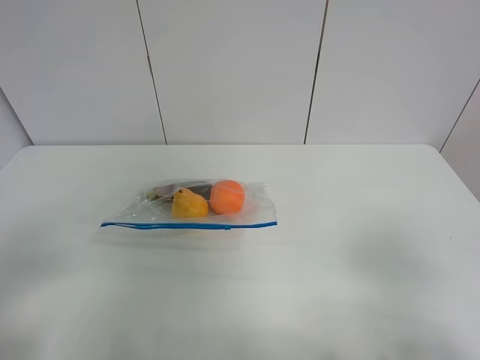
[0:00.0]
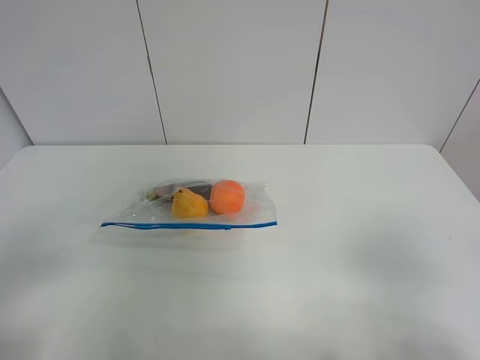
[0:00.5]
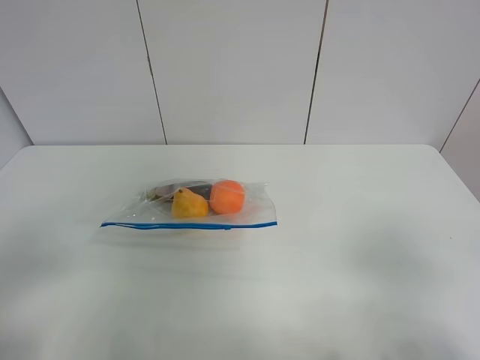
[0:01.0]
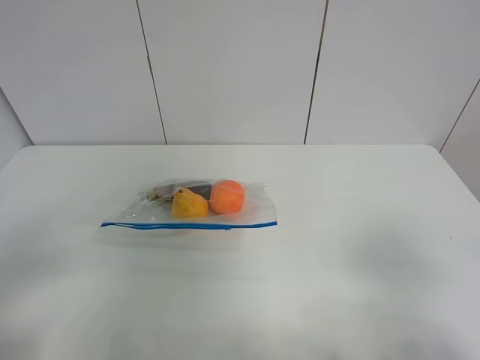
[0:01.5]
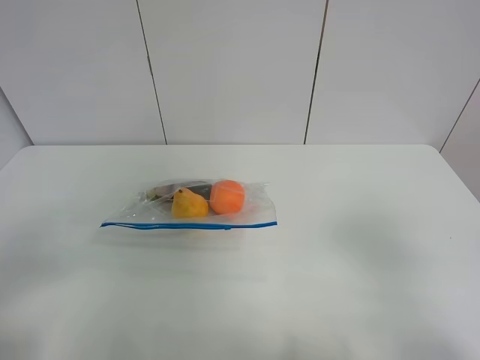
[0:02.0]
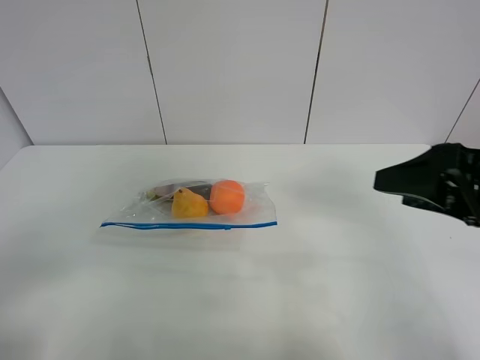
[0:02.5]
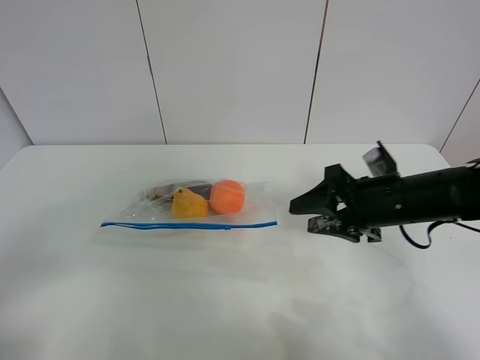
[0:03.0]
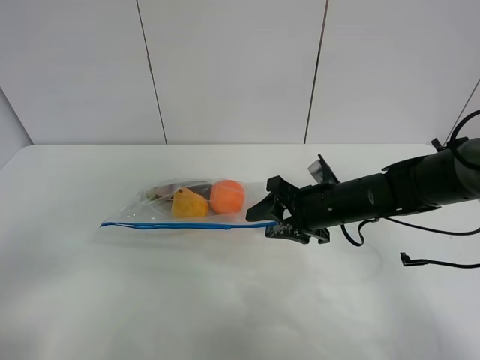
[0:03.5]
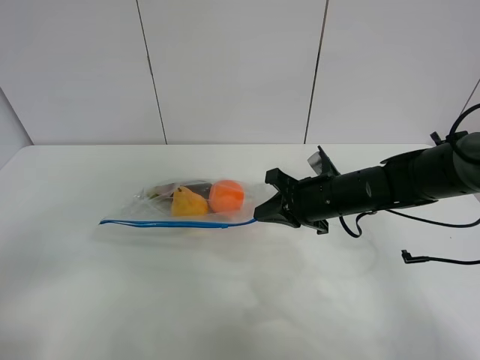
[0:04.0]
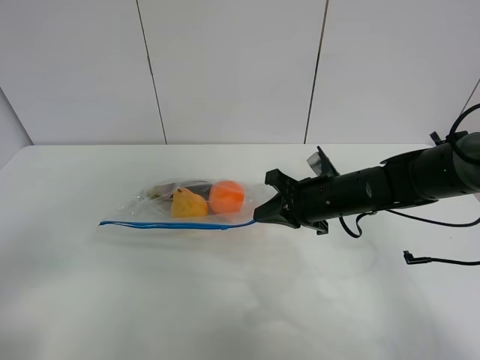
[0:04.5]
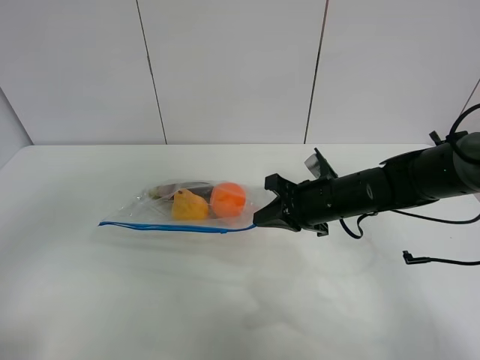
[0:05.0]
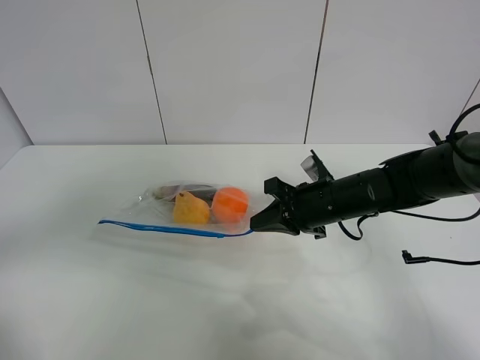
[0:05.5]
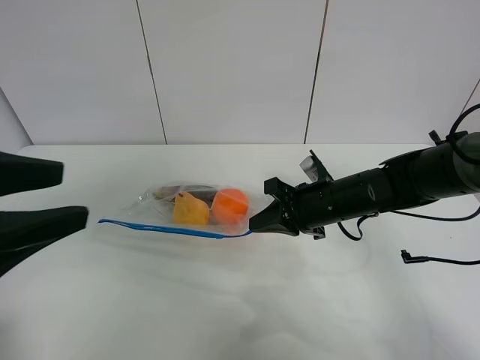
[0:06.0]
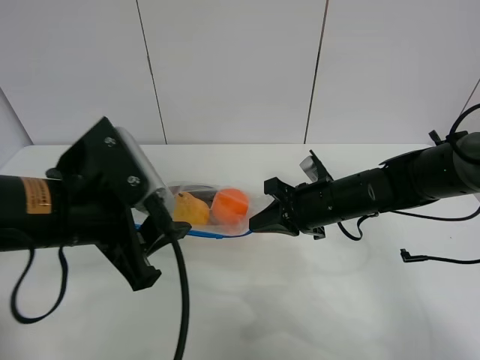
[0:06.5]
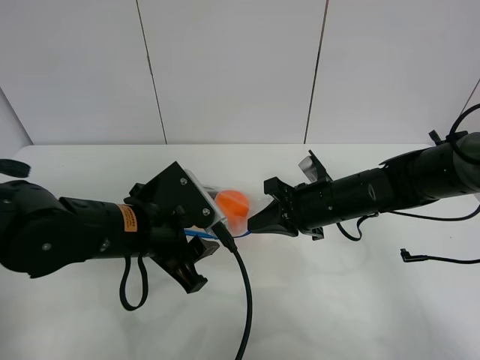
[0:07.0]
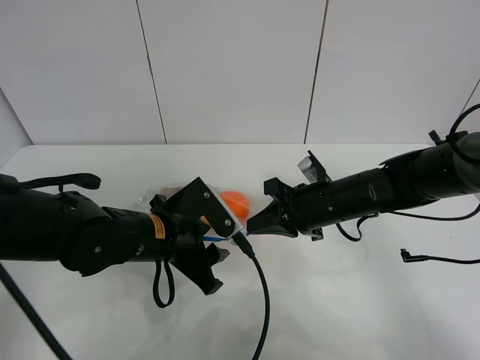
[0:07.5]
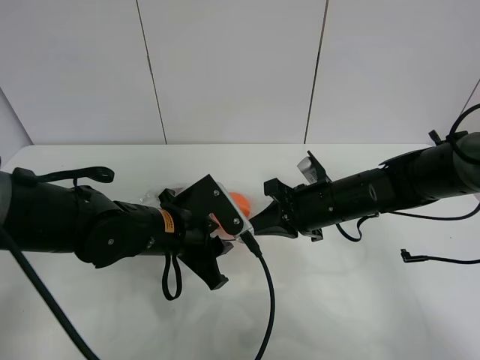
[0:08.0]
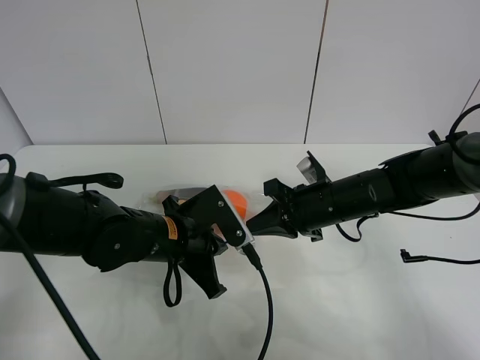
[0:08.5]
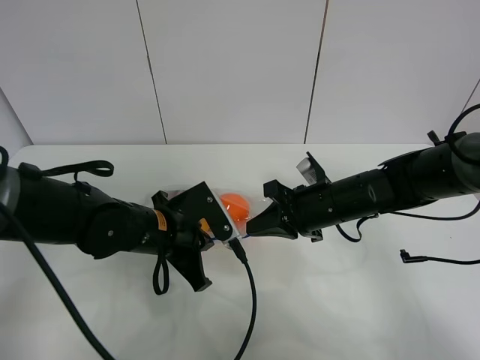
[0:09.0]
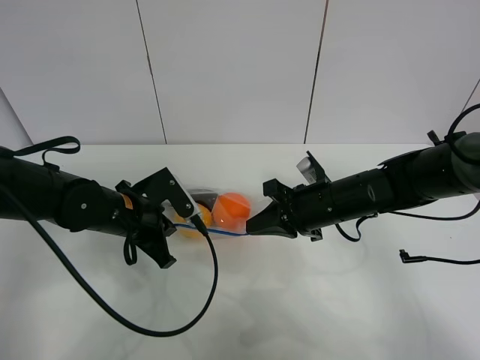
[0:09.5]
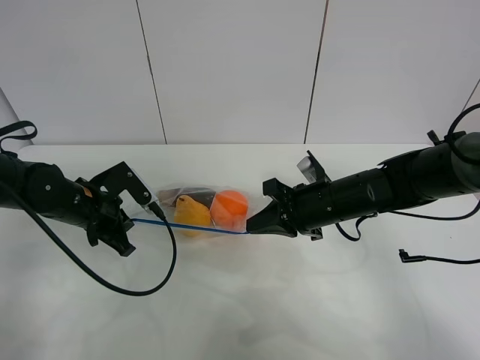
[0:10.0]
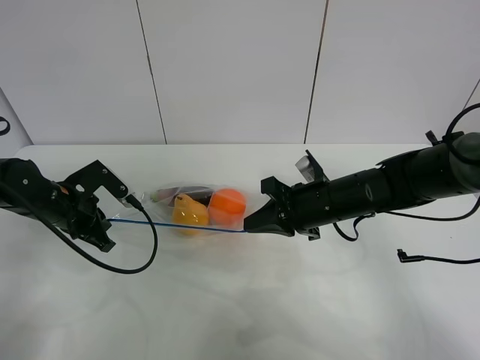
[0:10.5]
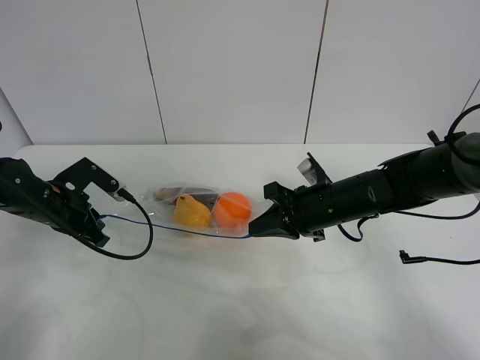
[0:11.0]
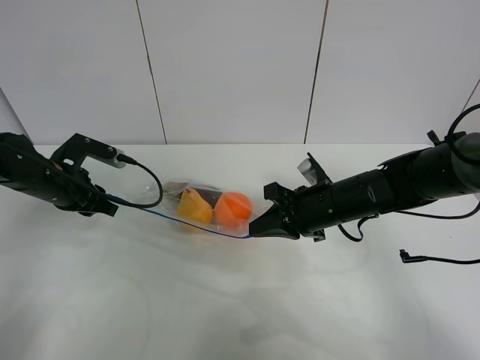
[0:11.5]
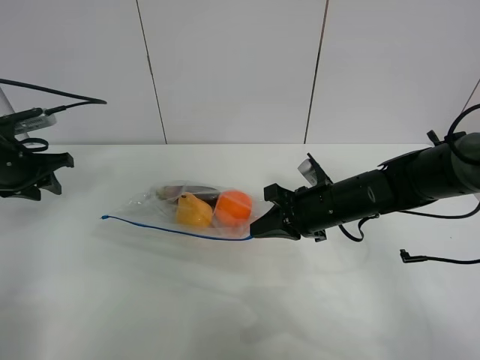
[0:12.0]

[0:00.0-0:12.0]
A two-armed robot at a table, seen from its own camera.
Step, 0.0 to 4.0 s: Grasp the fruit bag with right gripper.
Step, 4.5 to 11.0 s: Pull the fruit bag with left gripper.
2.0 to 4.0 s: The right gripper goes roughly 35 cm forward, downward and to the left, and closes.
4.0 to 6.0 s: The left gripper goes about 15 cm forward, to the right and upward.
6.0 to 8.0 s: The left gripper shifts roughly 25 cm downward, forward and to the right.
8.0 to 10.0 s: The left gripper travels to the left and forward by about 15 cm, and closes up.
10.0 to 12.0 s: The left gripper shifts roughly 15 cm to the left and upward, and opens up.

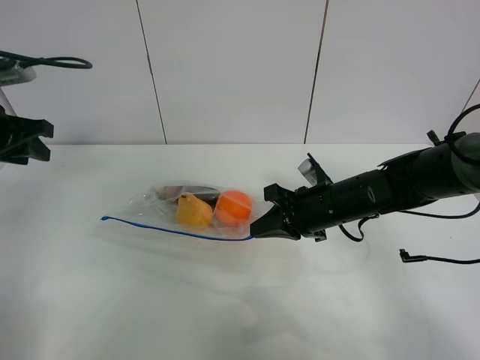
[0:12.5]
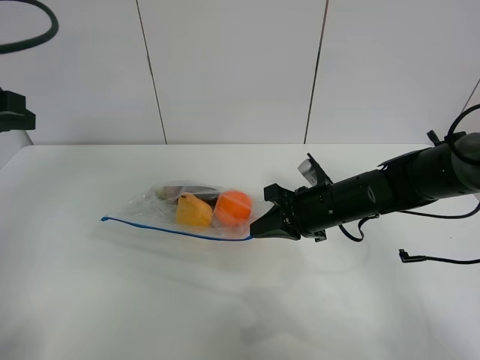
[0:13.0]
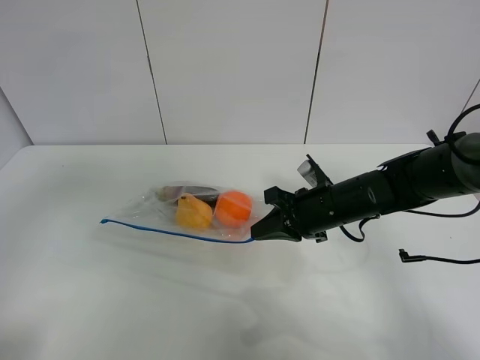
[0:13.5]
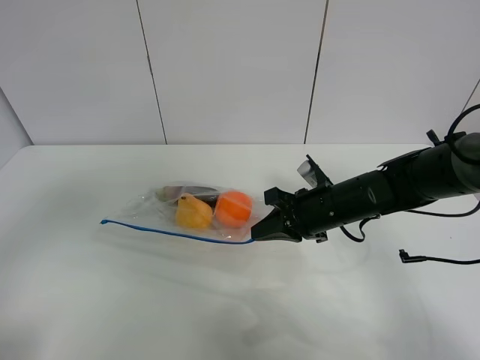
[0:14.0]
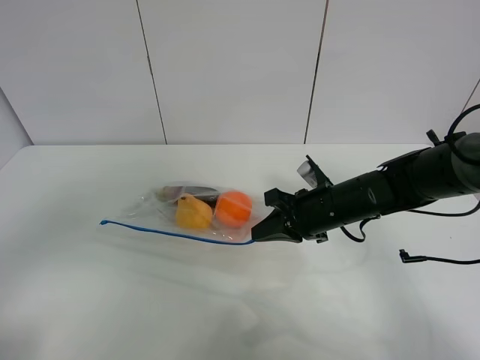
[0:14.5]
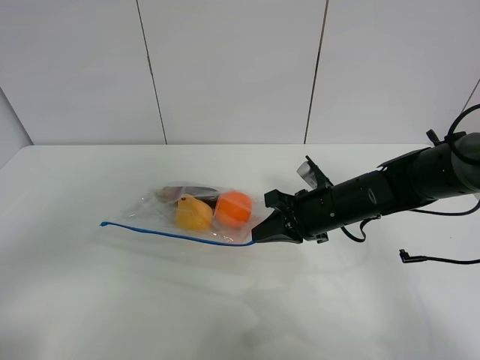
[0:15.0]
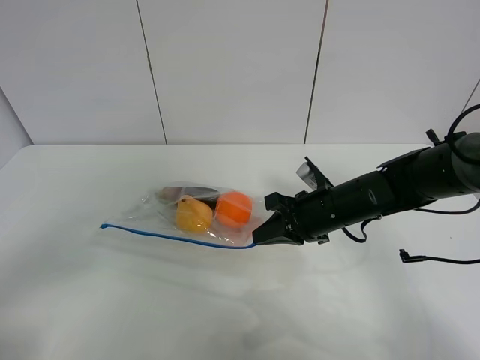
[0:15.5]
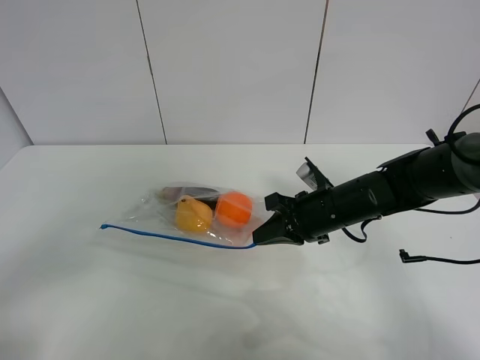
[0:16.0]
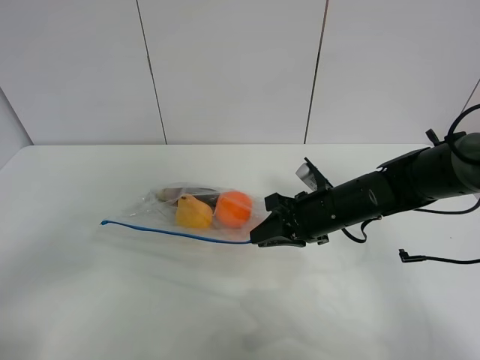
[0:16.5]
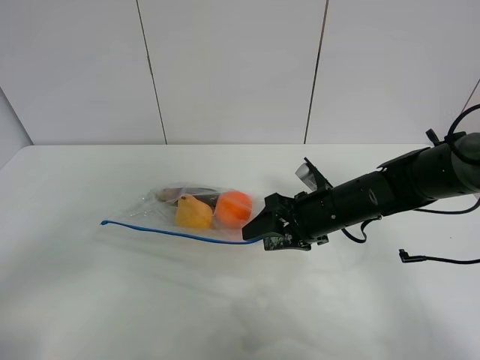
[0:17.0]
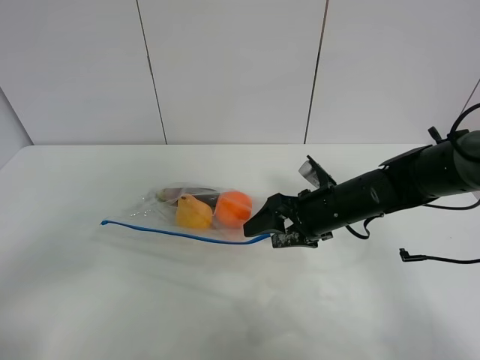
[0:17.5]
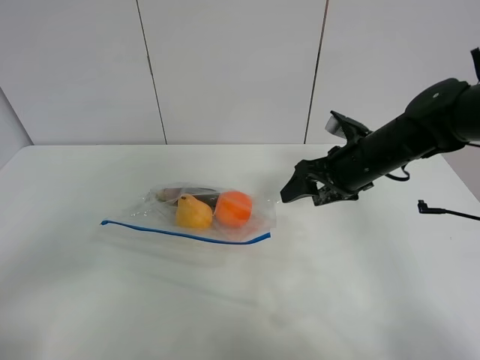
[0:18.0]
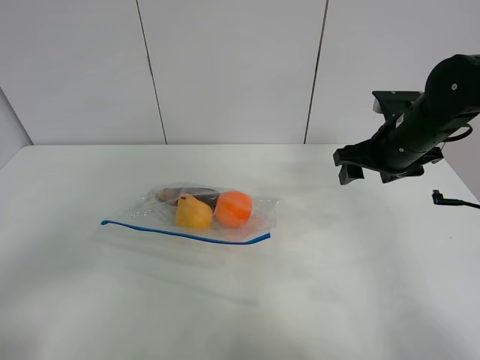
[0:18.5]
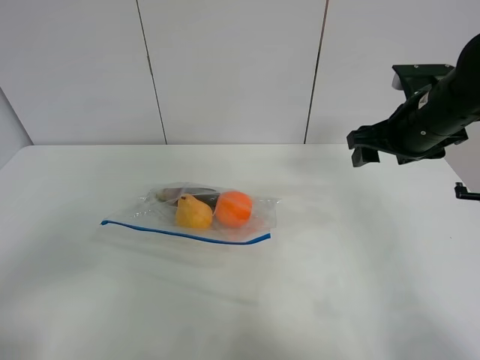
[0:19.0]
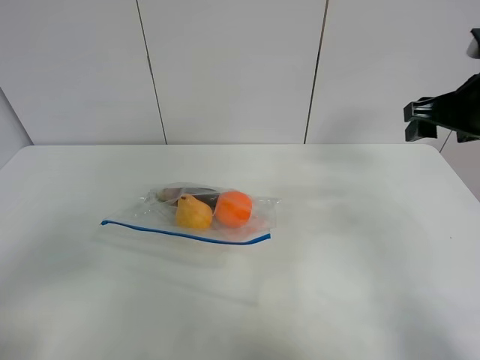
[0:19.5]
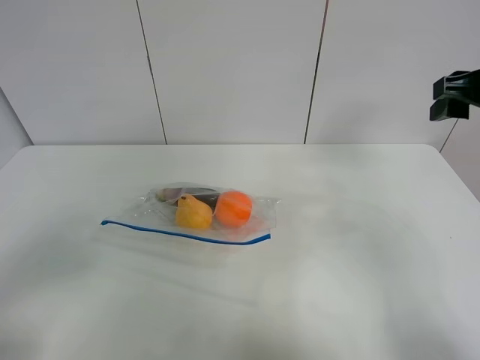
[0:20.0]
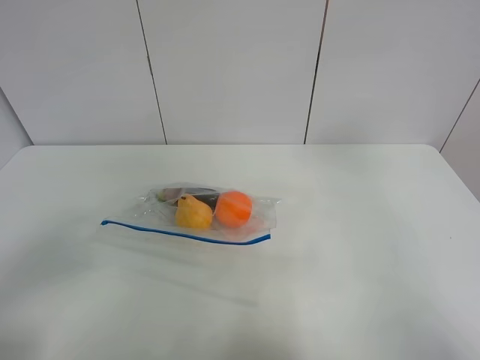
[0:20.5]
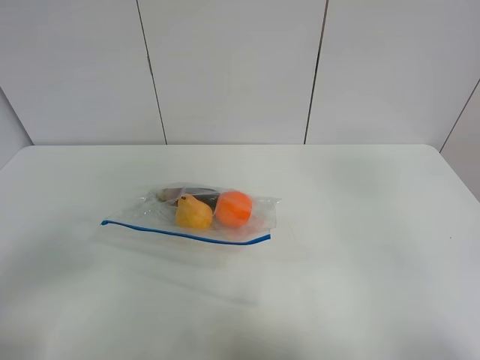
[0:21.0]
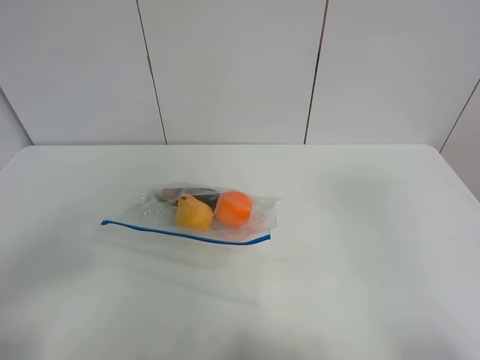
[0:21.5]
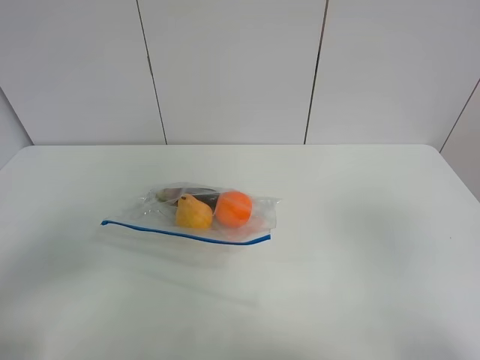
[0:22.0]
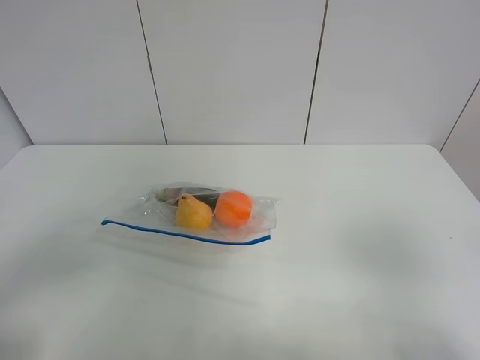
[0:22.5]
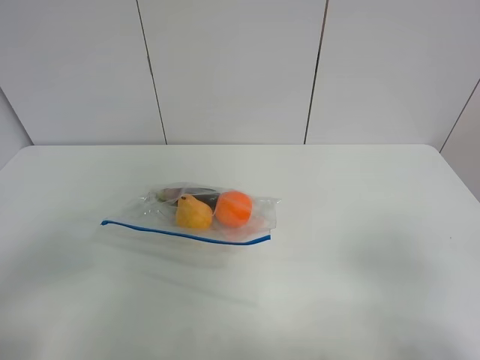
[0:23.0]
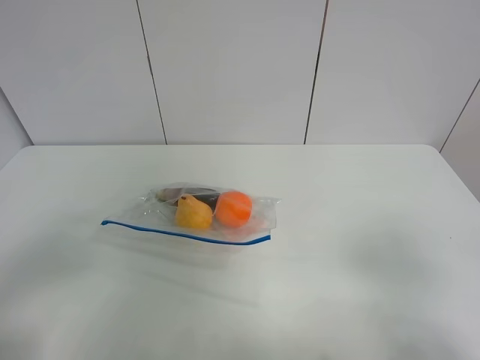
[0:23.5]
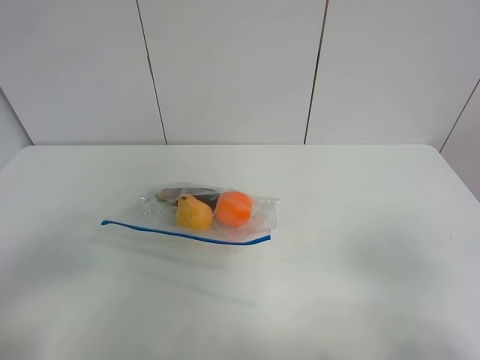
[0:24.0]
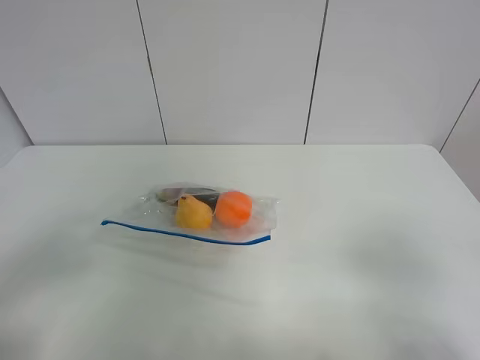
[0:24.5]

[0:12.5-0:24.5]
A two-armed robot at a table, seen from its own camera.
12.5 to 14.5 s: The left gripper heads backward, covering some 30 cm.
14.5 to 16.5 s: The left gripper moves downward, some 10 cm. The right gripper opens its fingers.
16.5 to 18.5 s: The right gripper travels to the right and upward by approximately 15 cm, and opens its fingers.
18.5 to 20.5 s: The right gripper is displaced upward and backward by some 30 cm.
20.5 to 22.5 s: The right gripper heads backward and downward, covering roughly 20 cm.

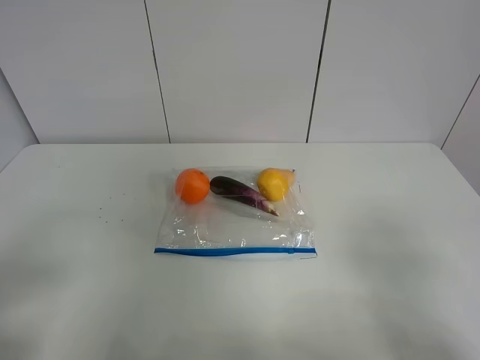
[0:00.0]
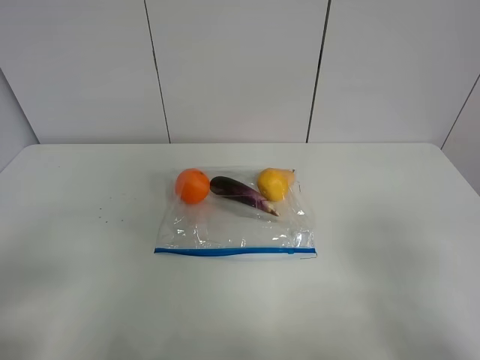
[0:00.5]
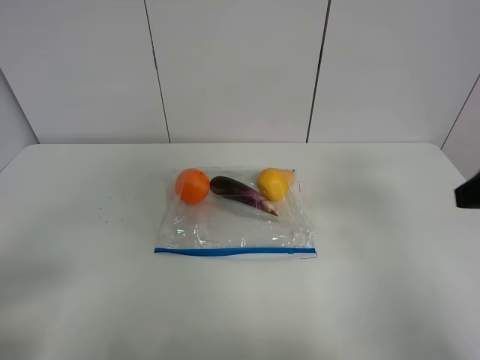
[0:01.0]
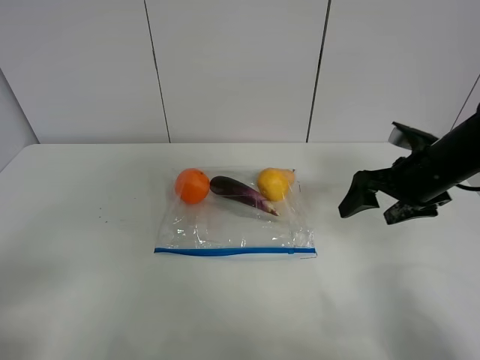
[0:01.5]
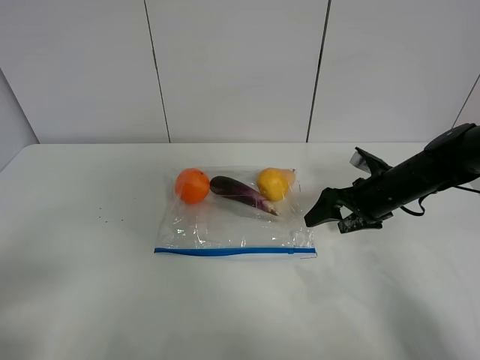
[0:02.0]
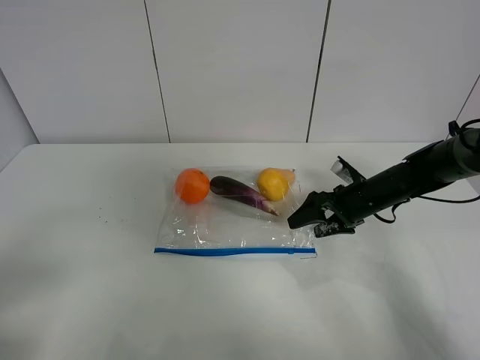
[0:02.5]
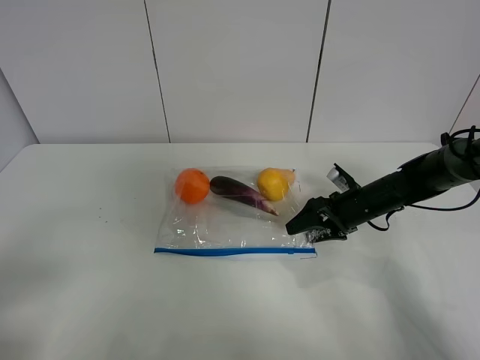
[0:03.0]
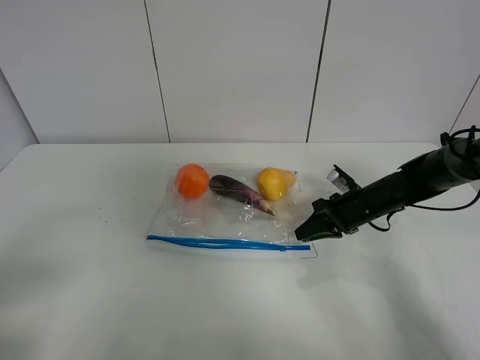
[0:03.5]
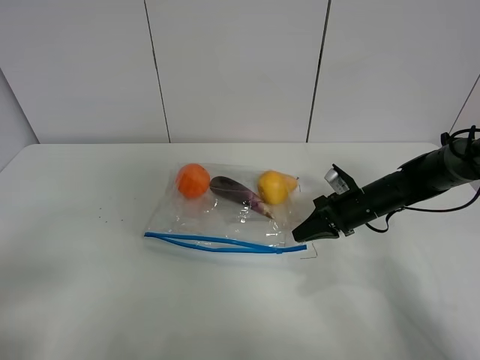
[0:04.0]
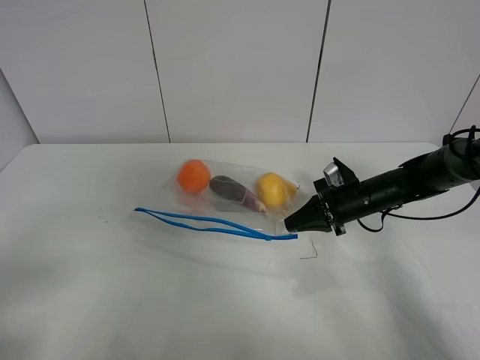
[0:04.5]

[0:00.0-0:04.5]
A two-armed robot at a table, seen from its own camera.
Step, 0.0 to 3.5 s: Grasp the fruit bag with right gripper.
0.0 to 2.0 s: The right gripper is displaced forward and downward by approximately 35 cm.
2.0 to 4.5 s: The right gripper closes up.
